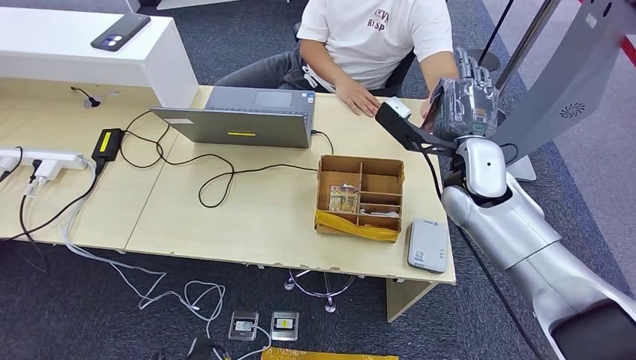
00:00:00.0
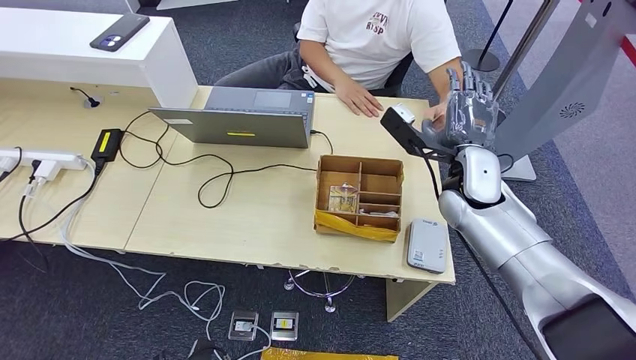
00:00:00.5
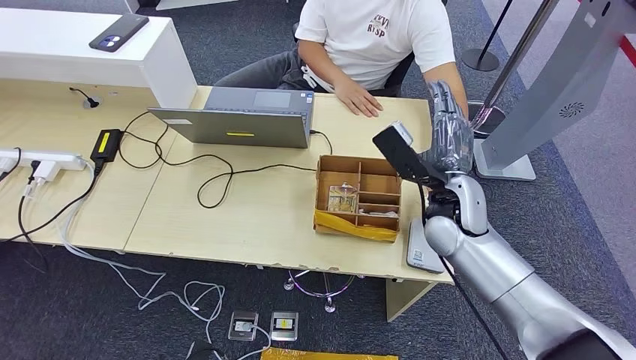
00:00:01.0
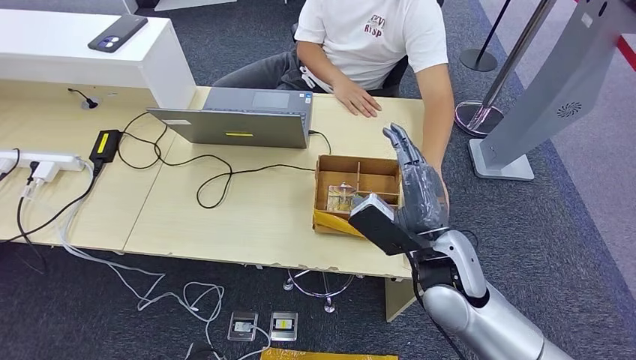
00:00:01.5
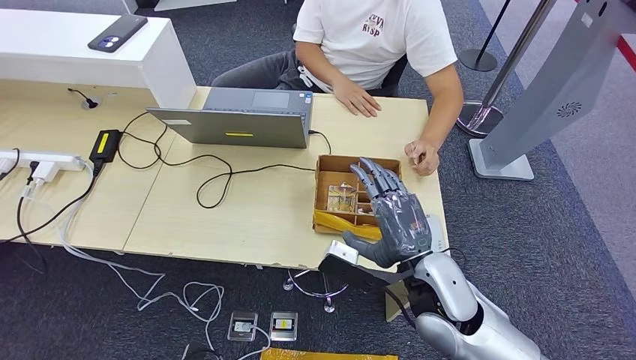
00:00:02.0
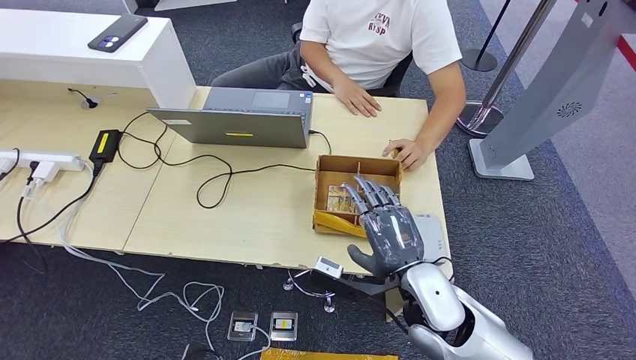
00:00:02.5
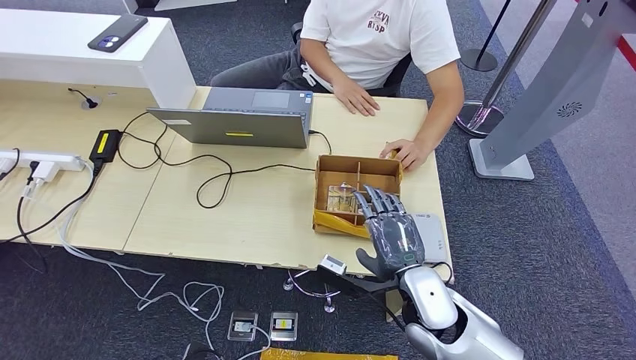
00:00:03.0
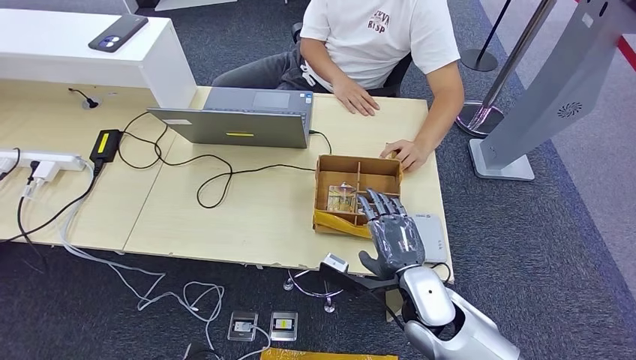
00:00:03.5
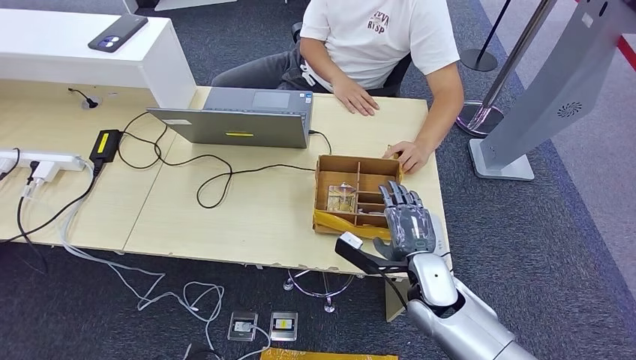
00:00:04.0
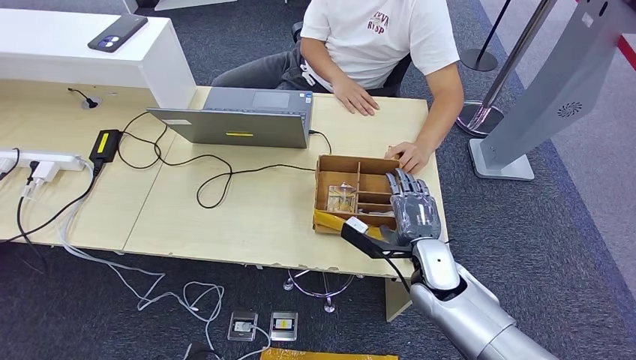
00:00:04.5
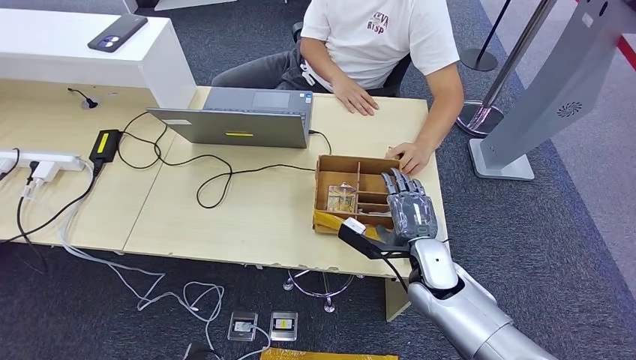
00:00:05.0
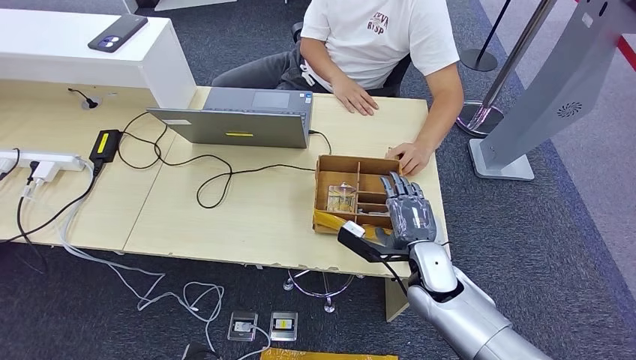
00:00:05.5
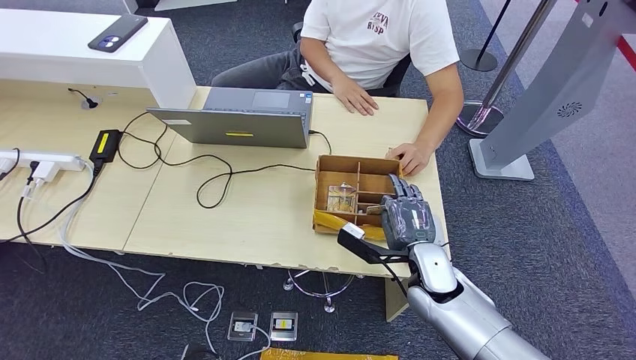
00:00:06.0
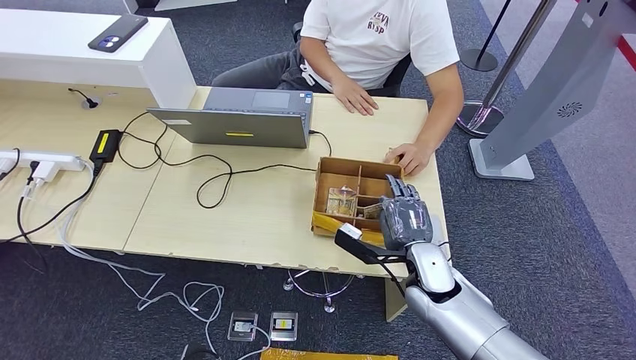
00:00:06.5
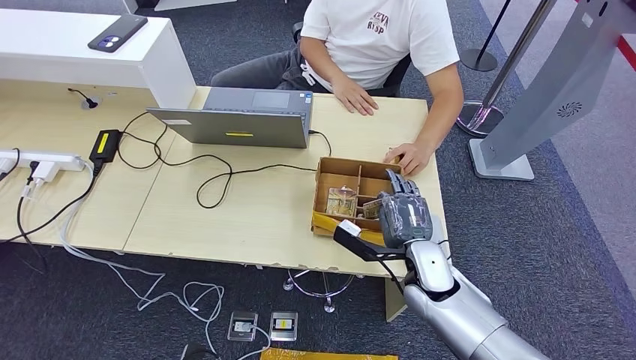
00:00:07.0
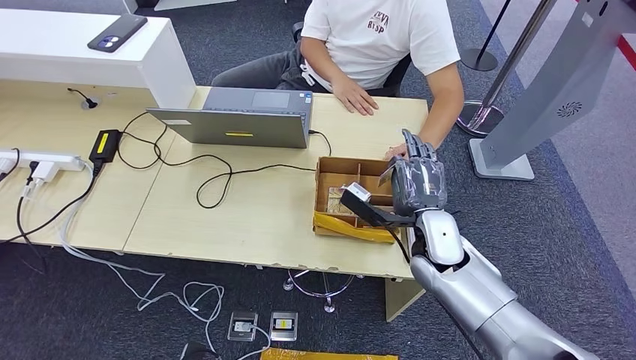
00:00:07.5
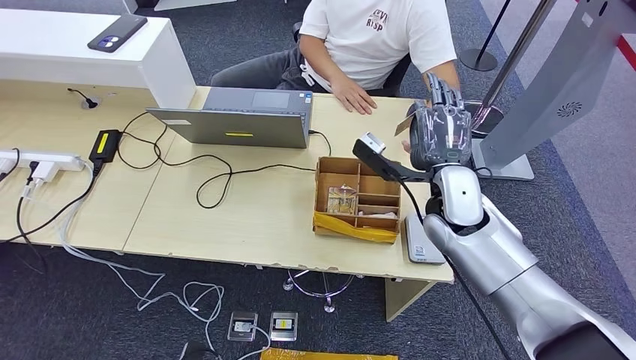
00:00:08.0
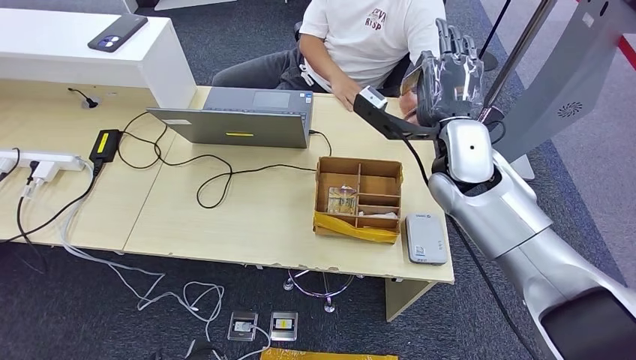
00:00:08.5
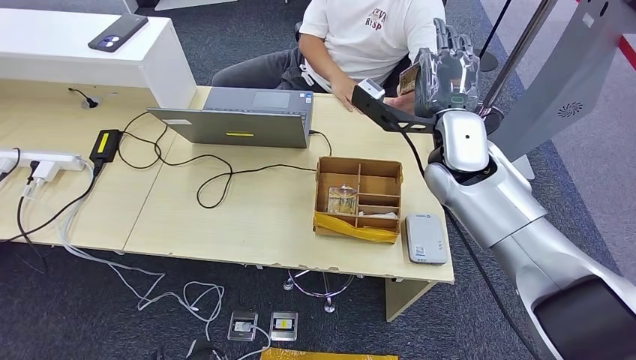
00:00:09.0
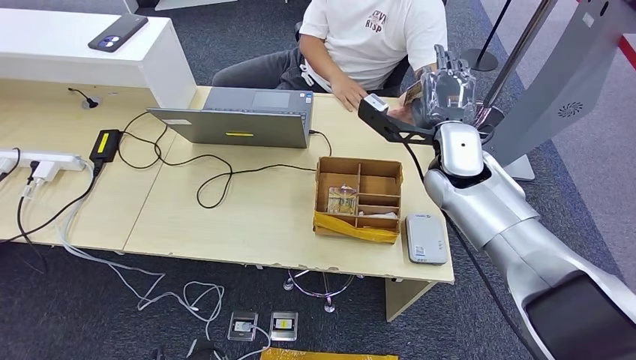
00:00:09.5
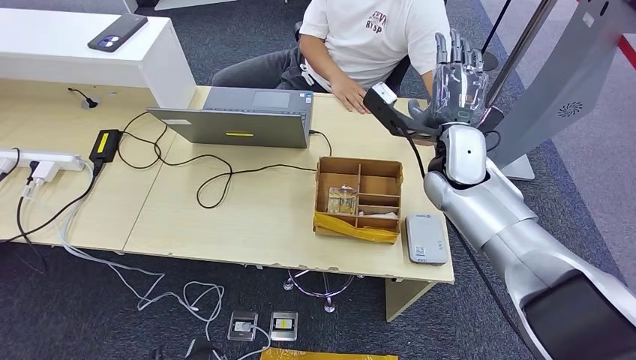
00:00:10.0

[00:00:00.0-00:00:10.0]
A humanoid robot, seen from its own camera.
Step, 00:00:05.0 to 00:00:07.5: Pick up the room key from the key card box.
Step, 00:00:08.0 to 00:00:10.0: Hand the room key to the person.
00:00:02.0 to 00:00:04.0: The right hand heads downward, covering about 10 cm.
00:00:04.0 to 00:00:06.0: There are only small adjustments of the hands.
00:00:06.0 to 00:00:08.0: The right hand heads upward and forward, covering roughly 15 cm.
00:00:08.0 to 00:00:10.0: The right hand moves roughly 5 cm.
